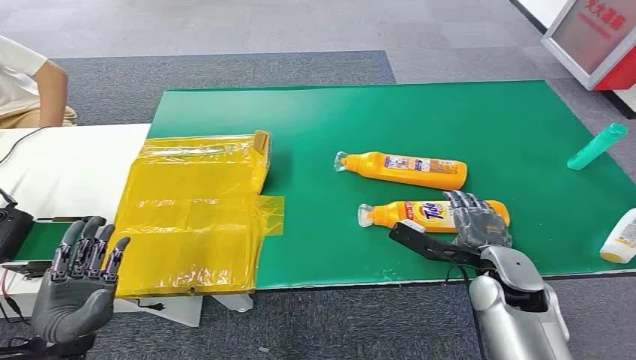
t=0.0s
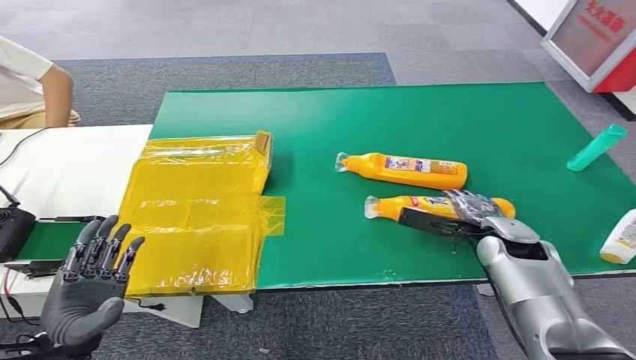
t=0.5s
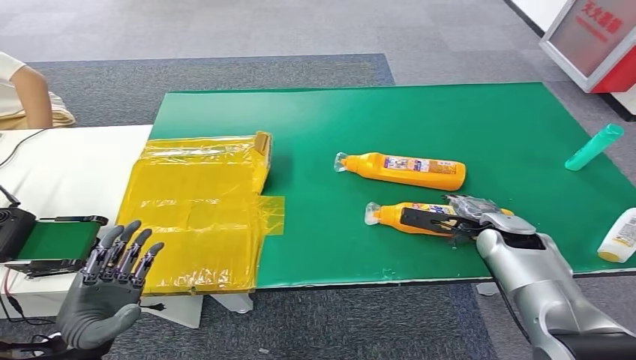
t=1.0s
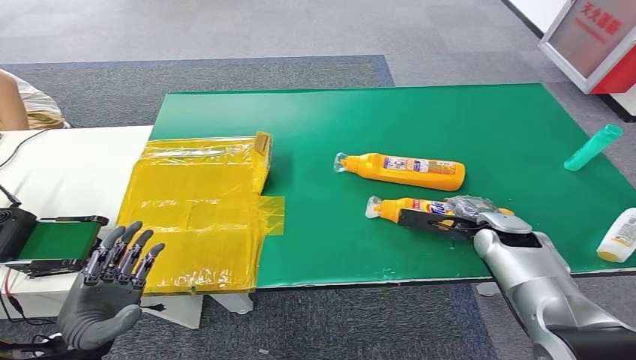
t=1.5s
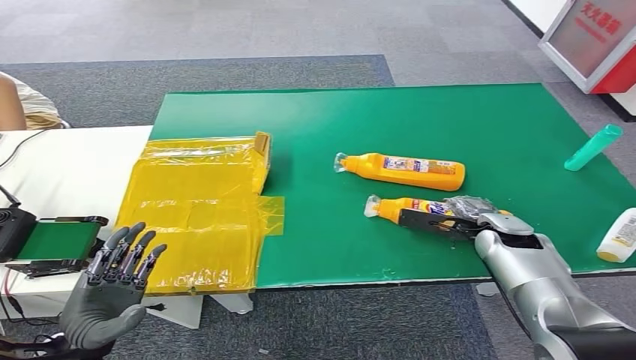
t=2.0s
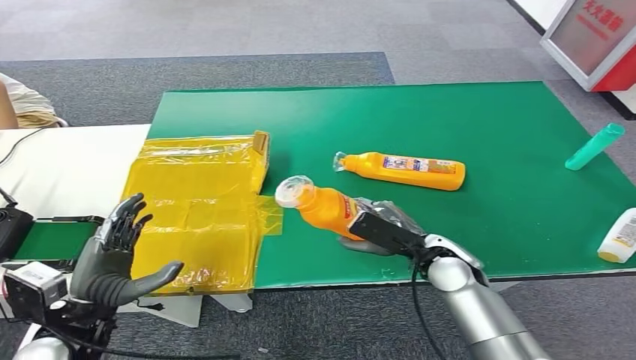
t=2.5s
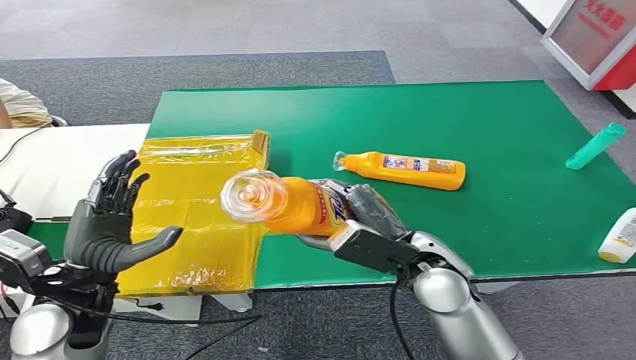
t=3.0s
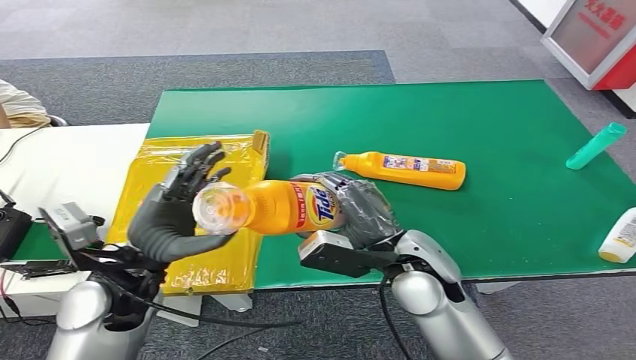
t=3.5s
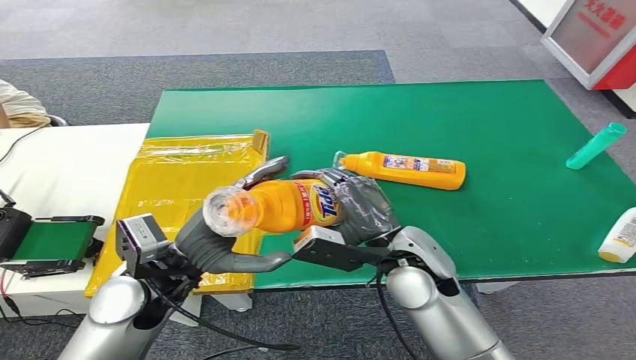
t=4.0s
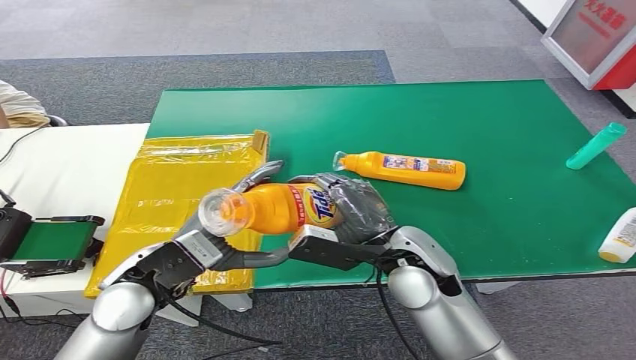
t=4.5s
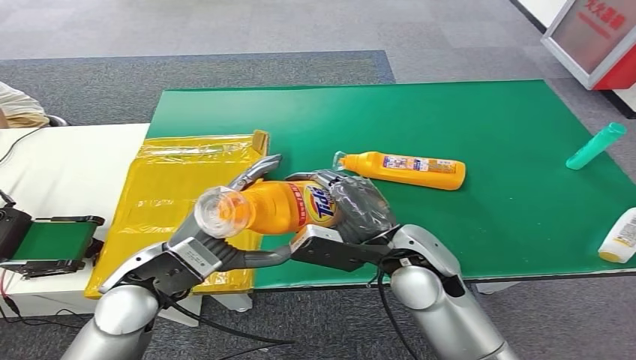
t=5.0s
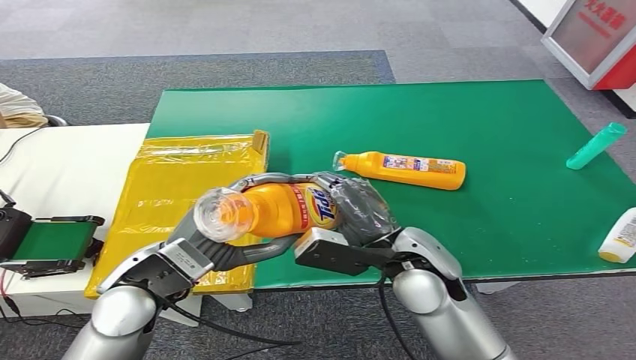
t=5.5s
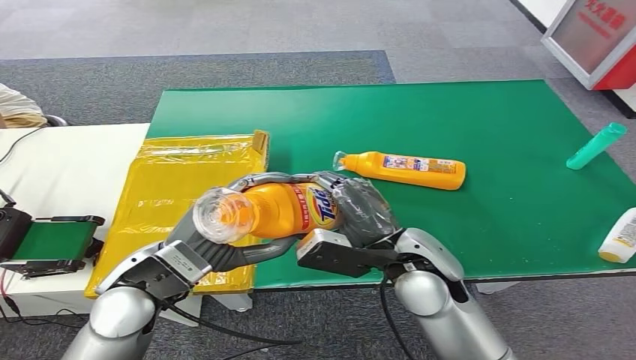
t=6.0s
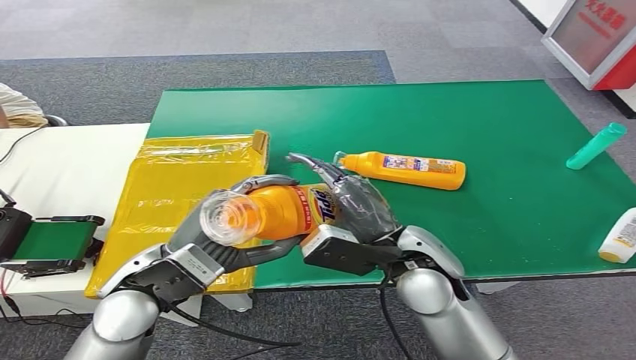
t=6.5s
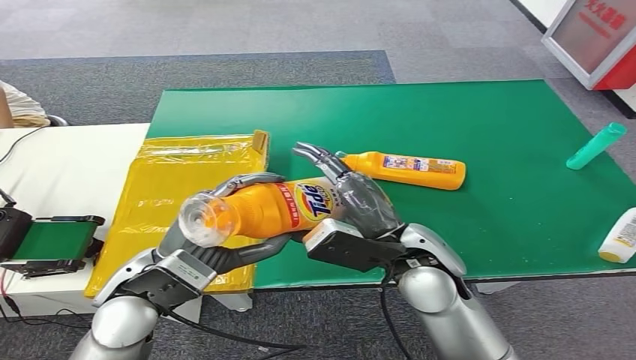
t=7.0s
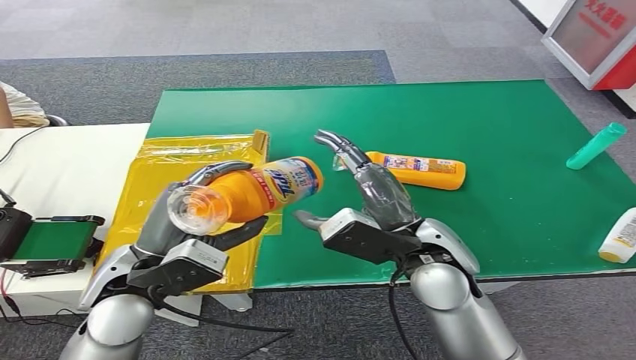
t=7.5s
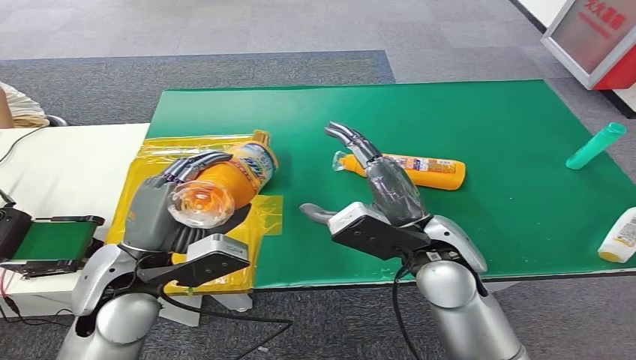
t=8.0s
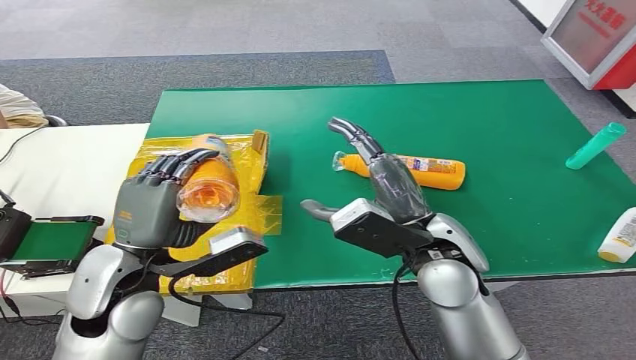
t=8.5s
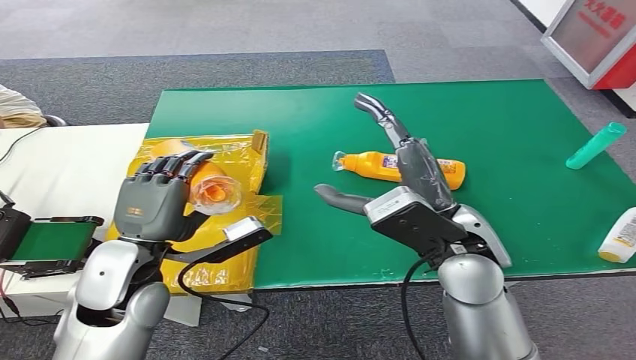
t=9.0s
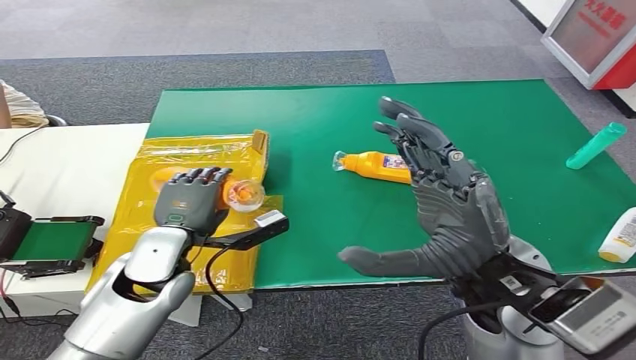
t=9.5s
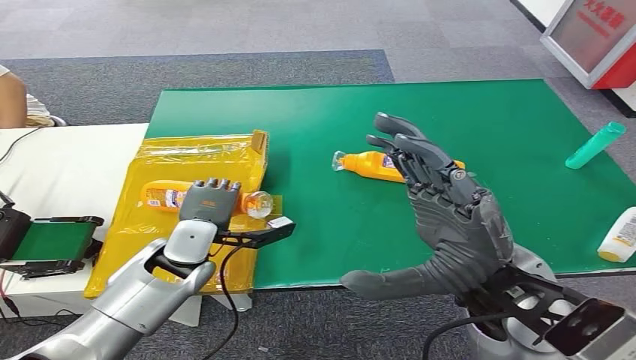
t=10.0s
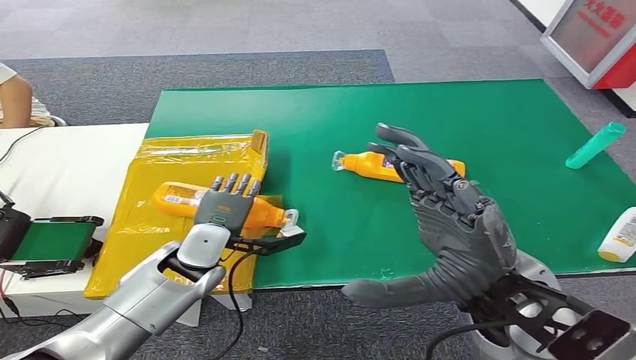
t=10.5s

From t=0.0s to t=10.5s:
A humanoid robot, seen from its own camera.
Step, from t=0.0s to t=2.5s: Pick up the bottle from the table.
Step, from t=4.5s to t=10.5s: Turn the bottle to the front side.

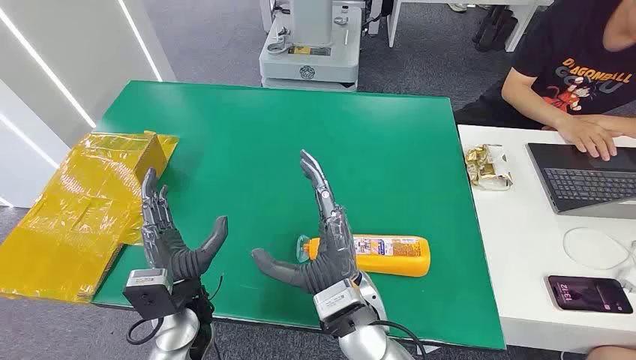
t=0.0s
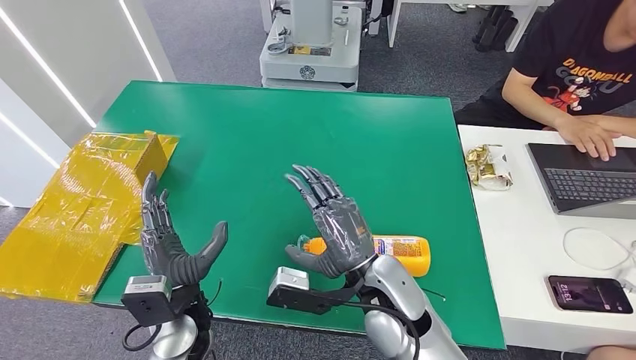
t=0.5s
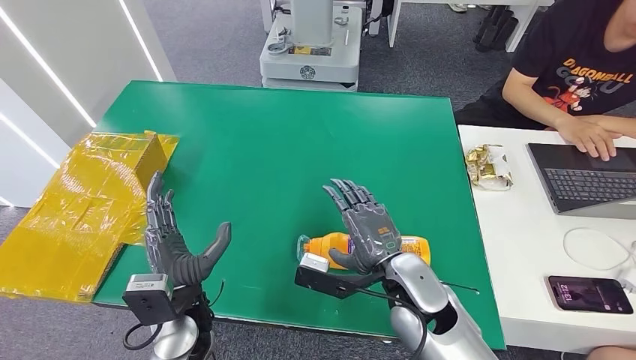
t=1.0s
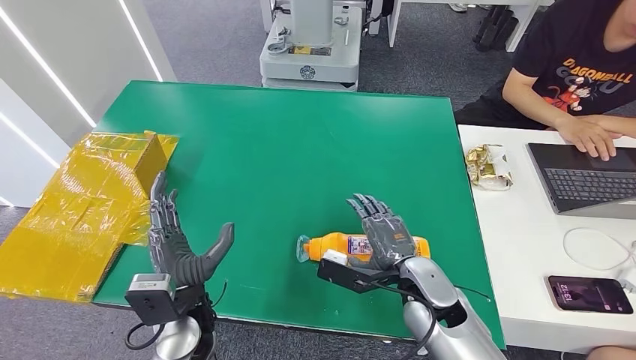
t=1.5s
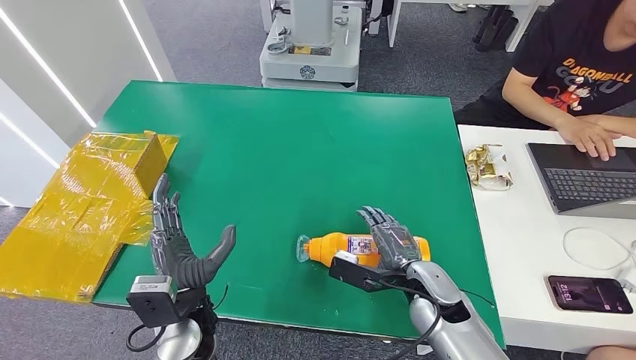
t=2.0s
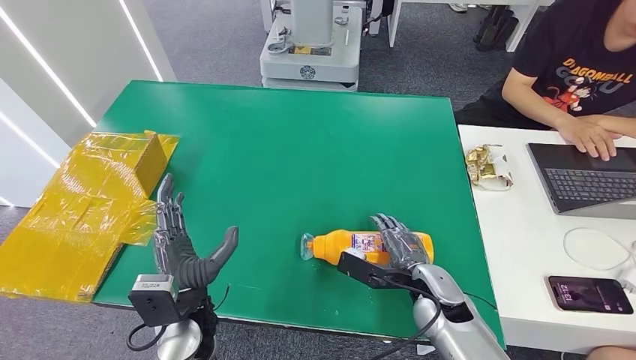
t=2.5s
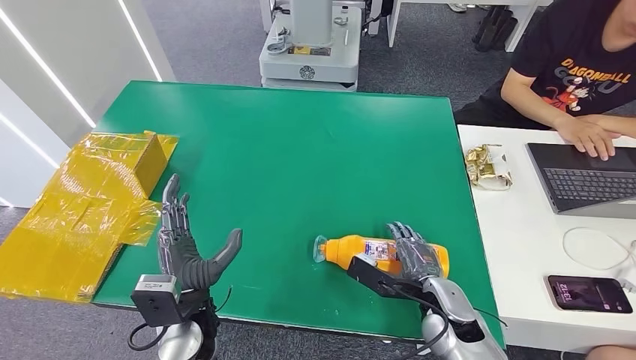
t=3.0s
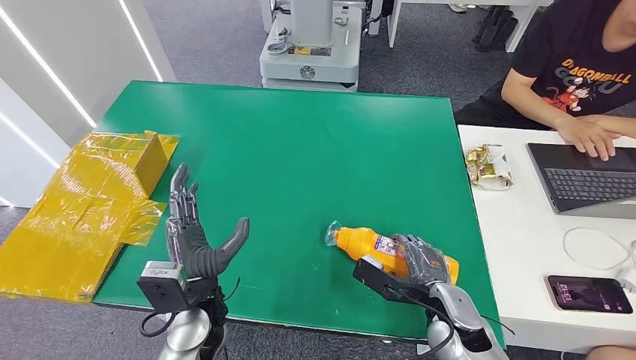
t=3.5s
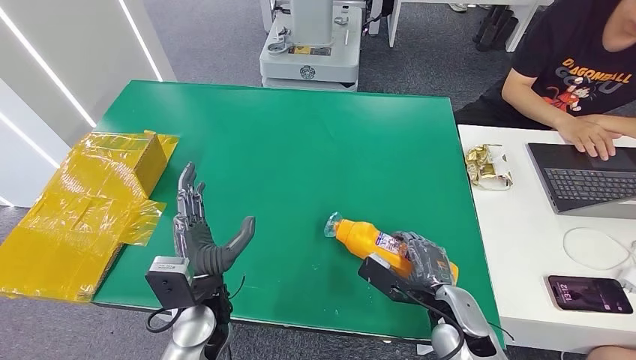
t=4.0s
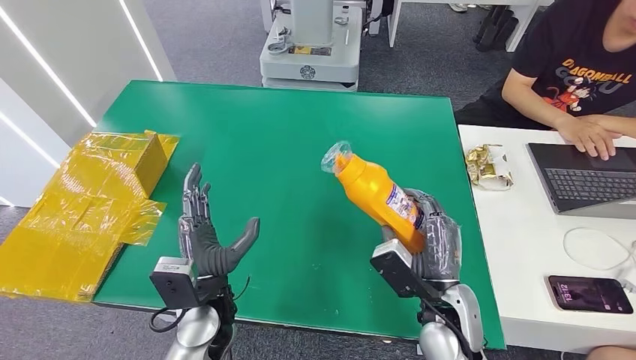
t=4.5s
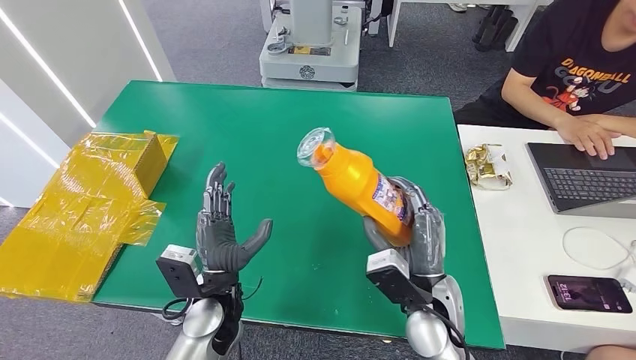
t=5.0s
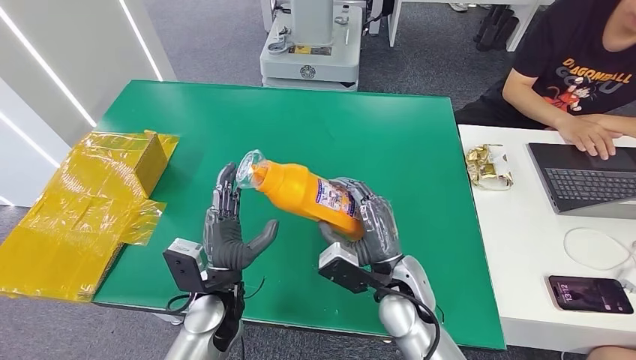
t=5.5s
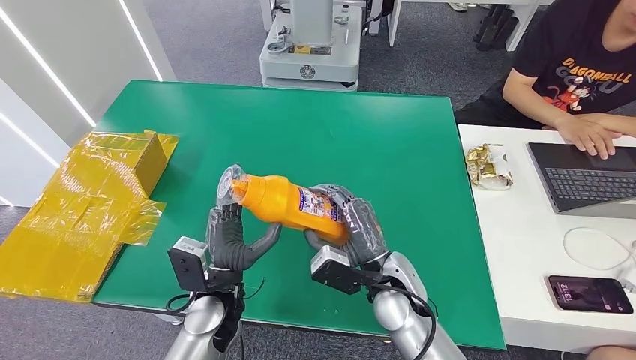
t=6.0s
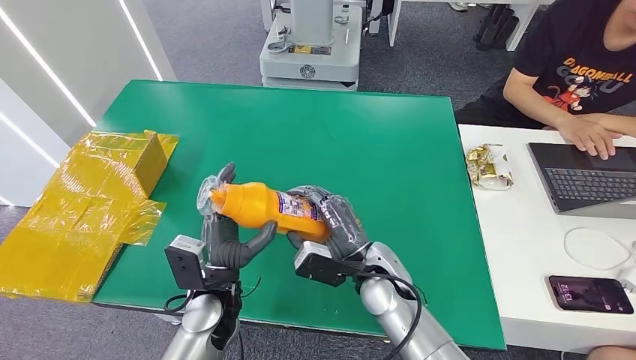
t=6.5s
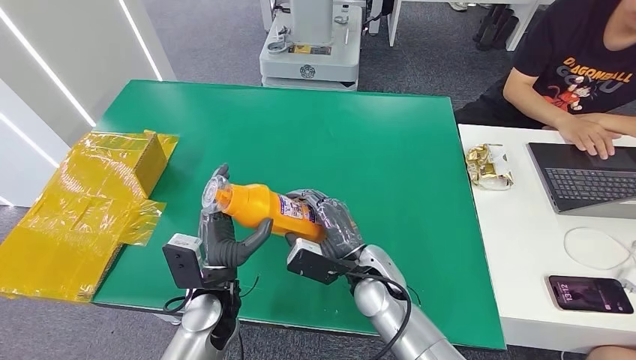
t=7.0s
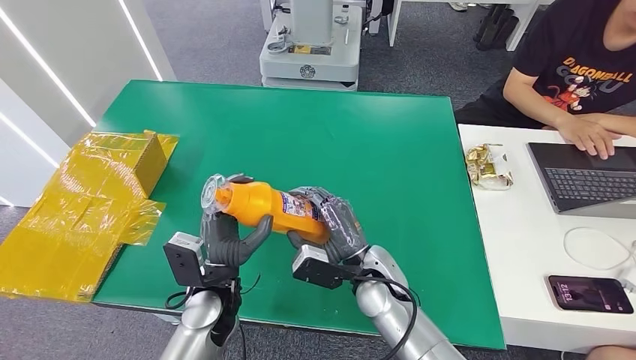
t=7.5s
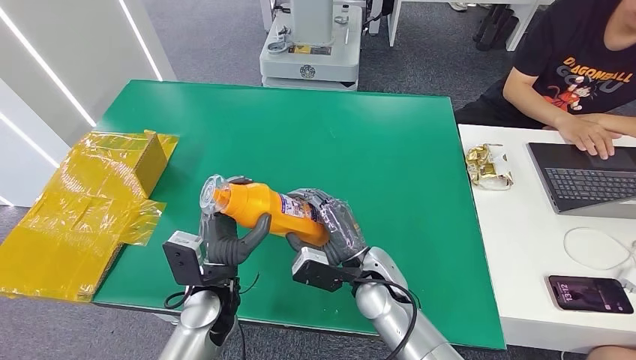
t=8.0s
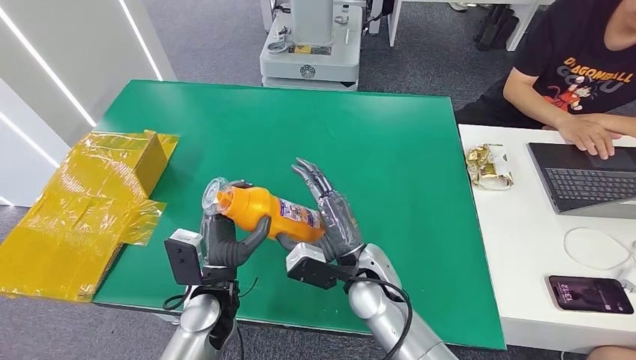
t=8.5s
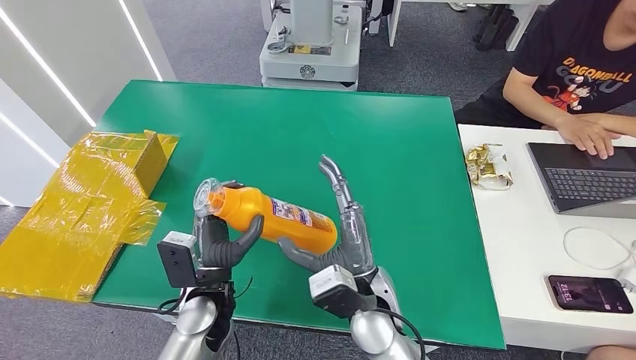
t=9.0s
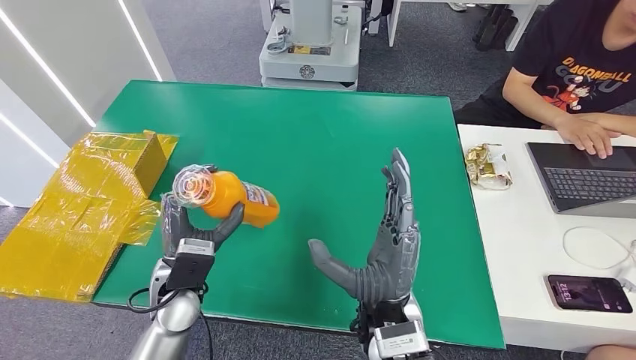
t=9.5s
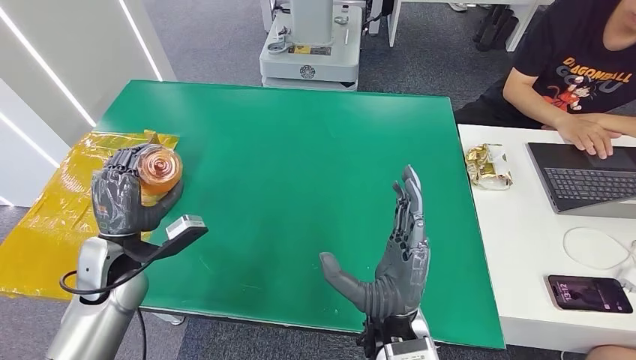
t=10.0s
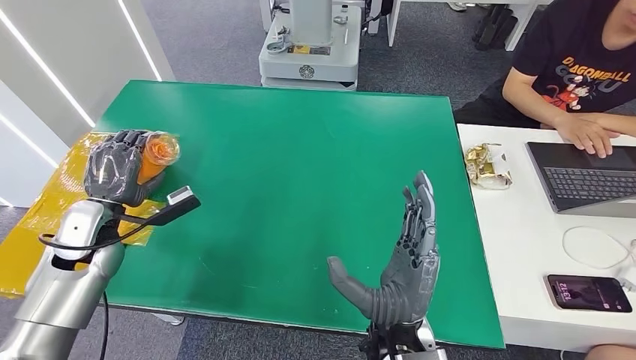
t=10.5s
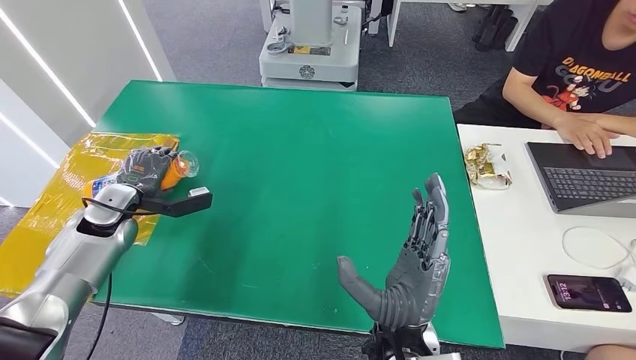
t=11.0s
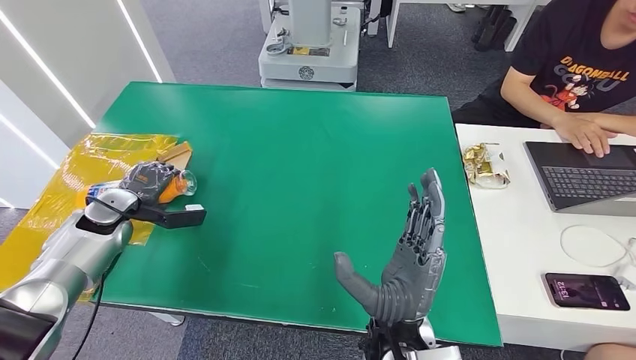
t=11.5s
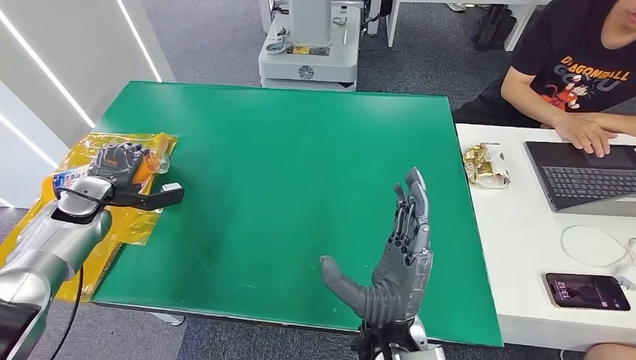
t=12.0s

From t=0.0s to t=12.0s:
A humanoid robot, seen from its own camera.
Step, from t=0.0s to t=4.5s: Pick up the bottle from the table.
From t=2.0s to t=4.0s: The right hand ends up some 5 cm from where it was.
From t=4.0s to t=6.0s: The right hand travels to the left by approximately 10 cm.
From t=6.0s to t=8.0s: There are only small adjustments of the hands.
From t=8.0s to t=10.0s: The left hand heads to the left, covering some 15 cm. Meanwhile the right hand moves backward and upward, approximately 10 cm.
From t=10.0s to t=12.0s: The left hand moves to the left and forward, some 20 cm.
